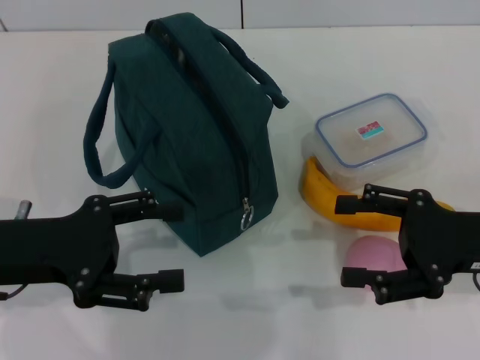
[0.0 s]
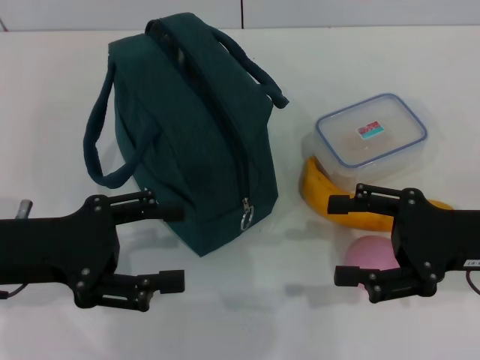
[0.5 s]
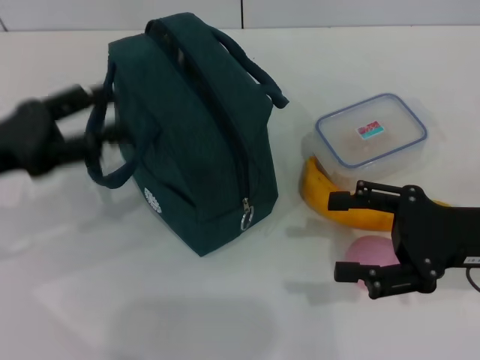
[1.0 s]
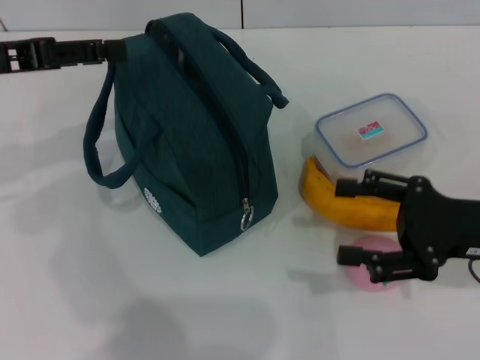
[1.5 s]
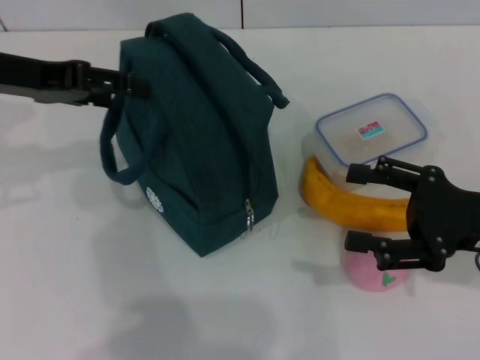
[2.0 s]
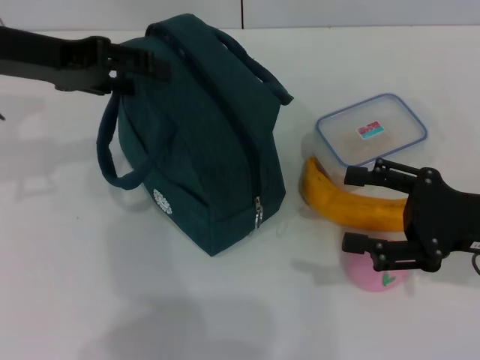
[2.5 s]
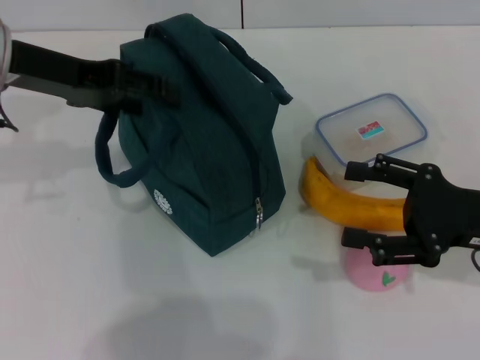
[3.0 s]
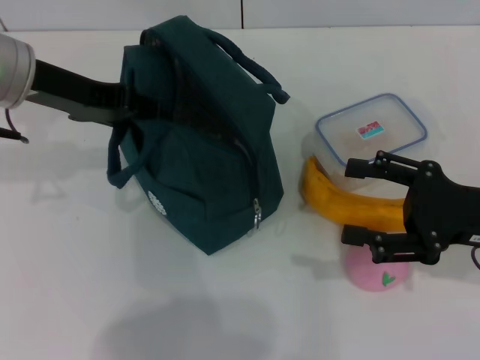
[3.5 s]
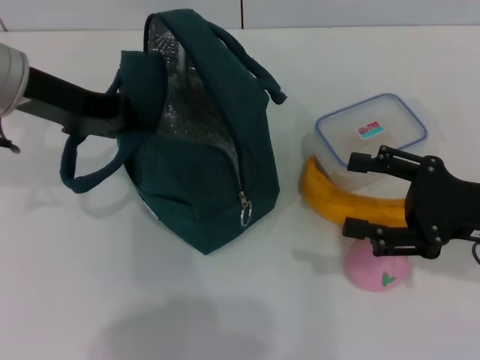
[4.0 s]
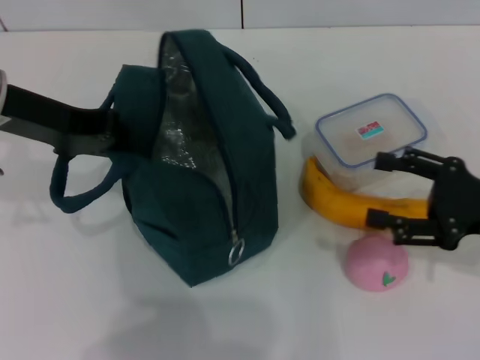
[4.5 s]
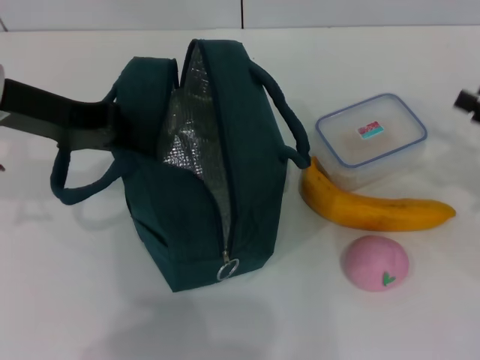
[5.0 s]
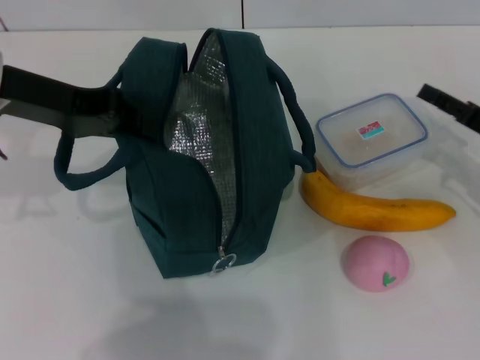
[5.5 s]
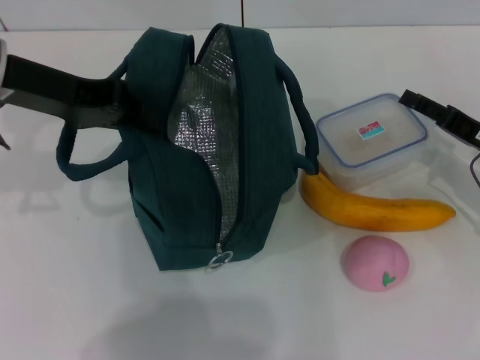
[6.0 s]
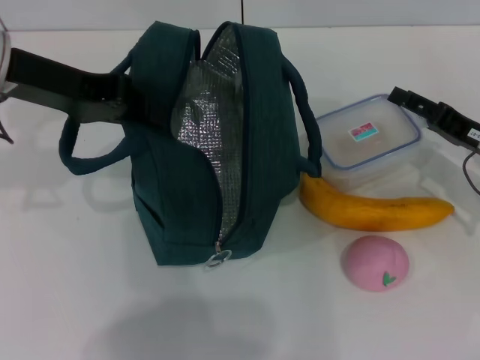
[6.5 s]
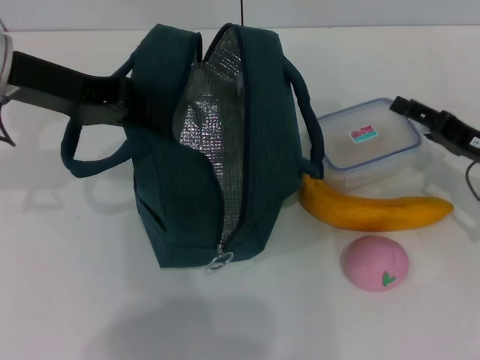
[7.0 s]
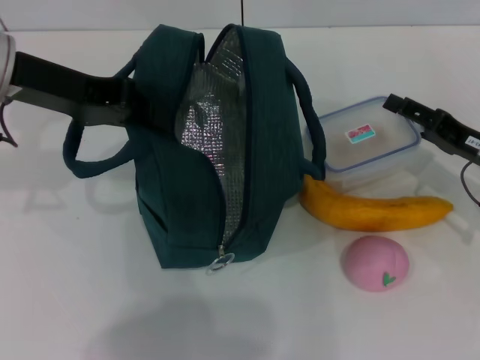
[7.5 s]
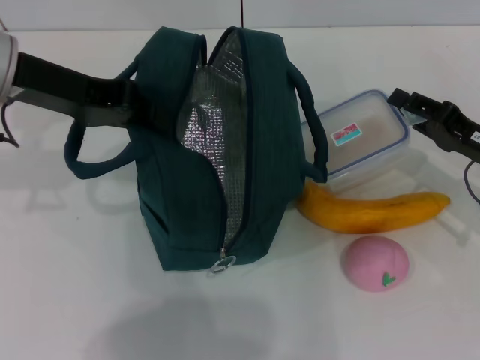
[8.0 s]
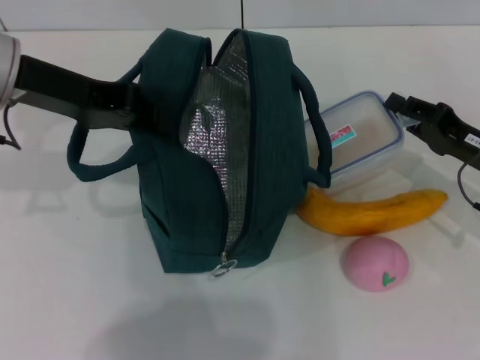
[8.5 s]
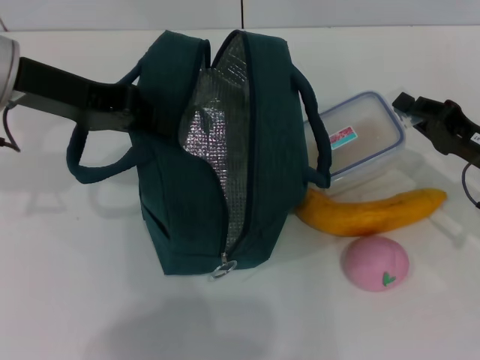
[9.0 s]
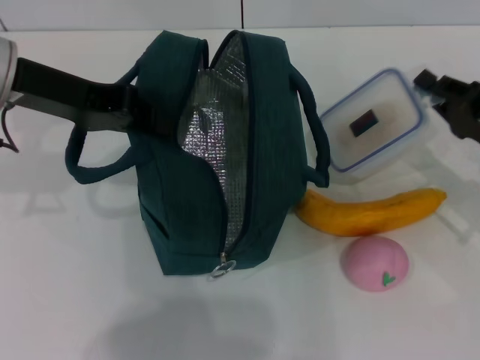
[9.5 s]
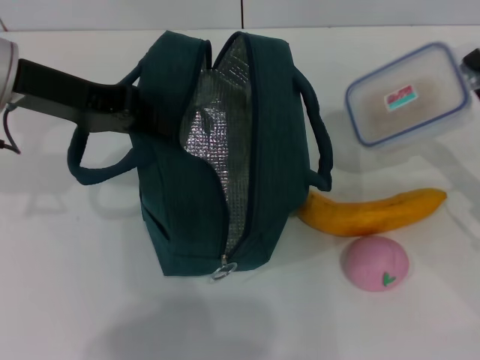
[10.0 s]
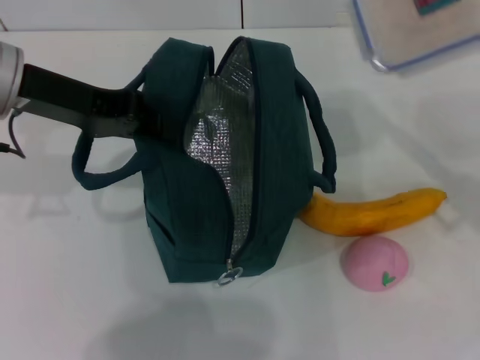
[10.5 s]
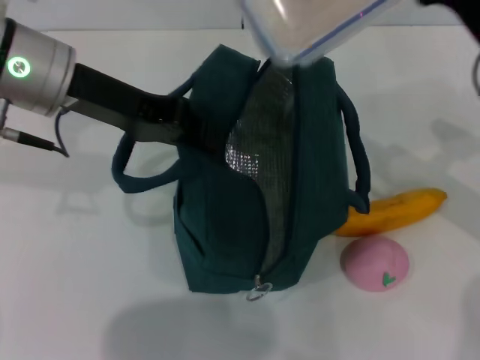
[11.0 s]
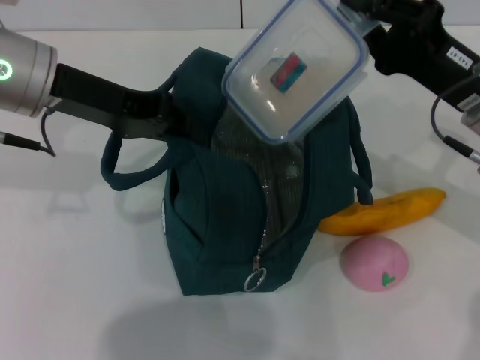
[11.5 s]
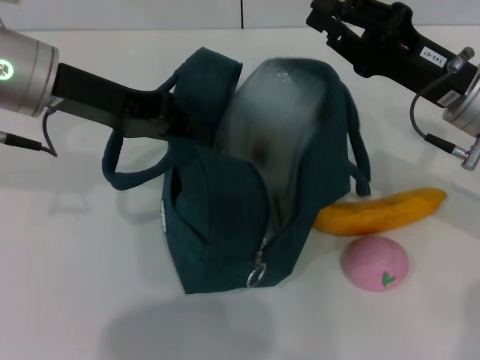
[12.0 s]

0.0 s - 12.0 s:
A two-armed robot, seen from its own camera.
Step, 0.0 s - 3.5 s: Hold the lunch bag with your left hand.
Step, 4.0 s - 9.0 s: Pick up the lunch box with your right hand.
0.0 s - 2.0 s: The left gripper shifts roughly 15 cm forward and upward.
2.0 s - 4.0 s: The left gripper closes up.
4.0 s - 6.0 s: The right gripper travels forward by roughly 5 cm.
6.0 s - 8.0 s: The grippers move only a little.
8.0 s - 10.0 s: The right gripper closes.
10.0 s - 12.0 s: The right gripper shifts about 15 cm to the left, upward and forward.

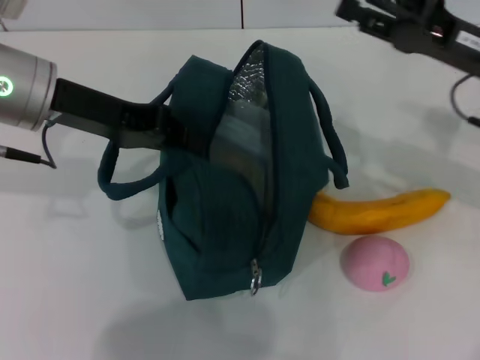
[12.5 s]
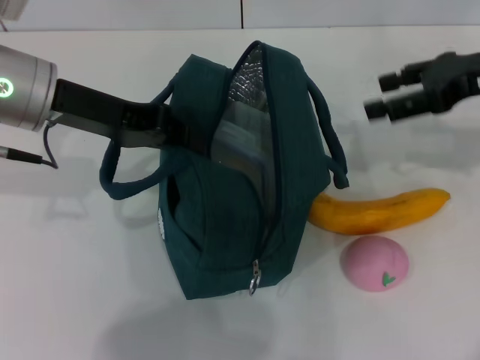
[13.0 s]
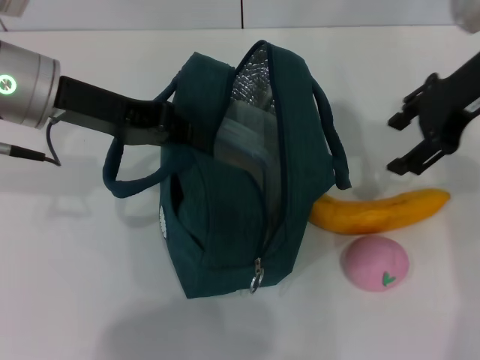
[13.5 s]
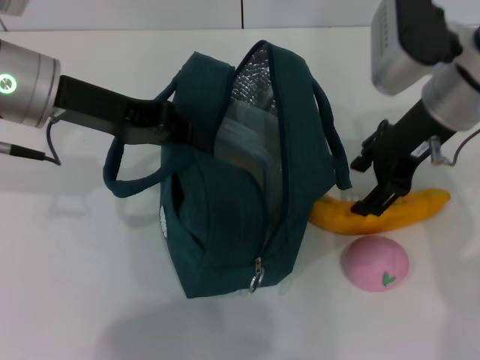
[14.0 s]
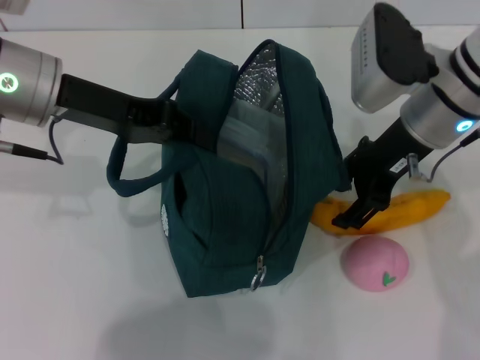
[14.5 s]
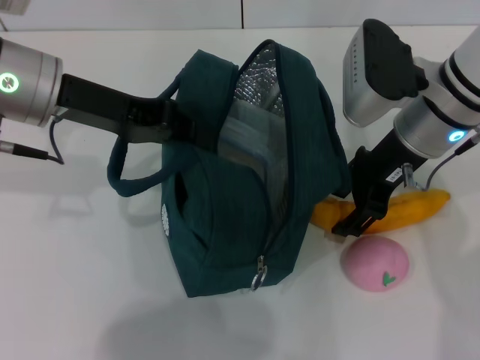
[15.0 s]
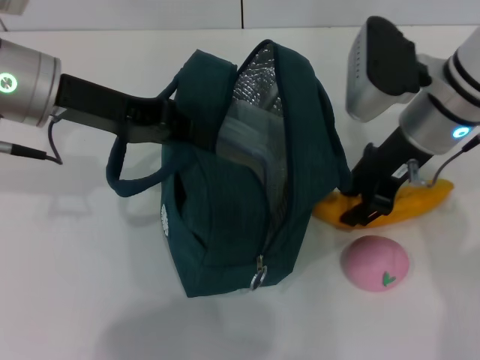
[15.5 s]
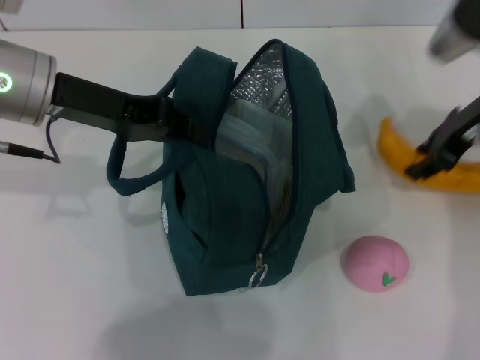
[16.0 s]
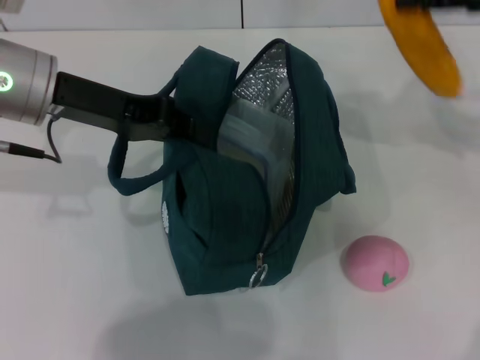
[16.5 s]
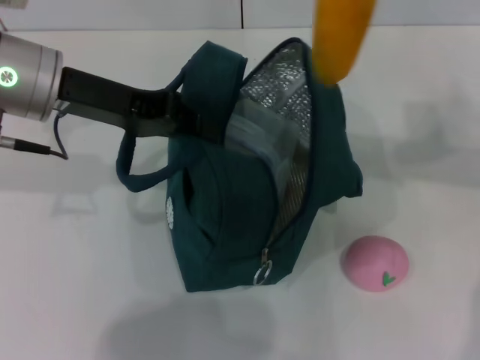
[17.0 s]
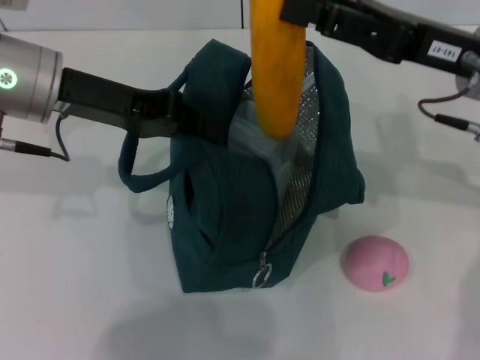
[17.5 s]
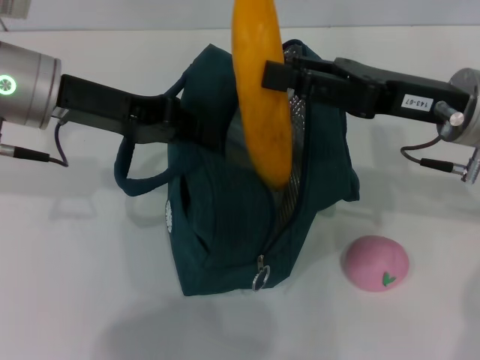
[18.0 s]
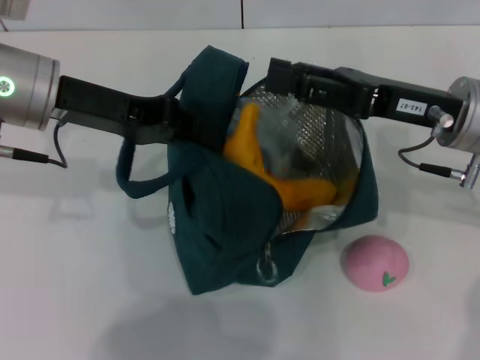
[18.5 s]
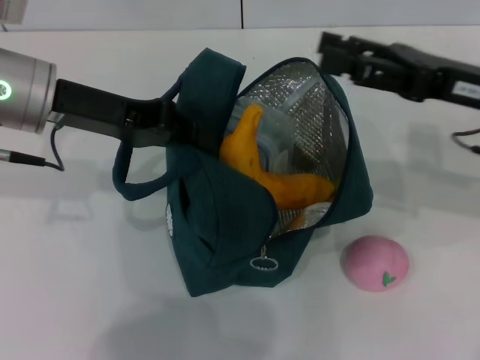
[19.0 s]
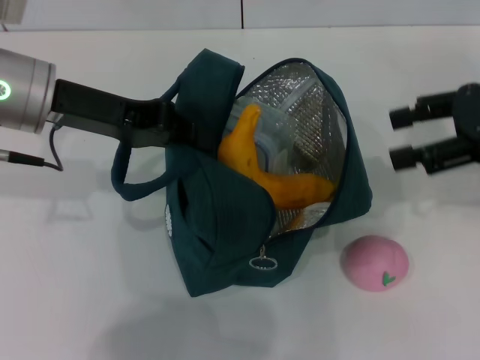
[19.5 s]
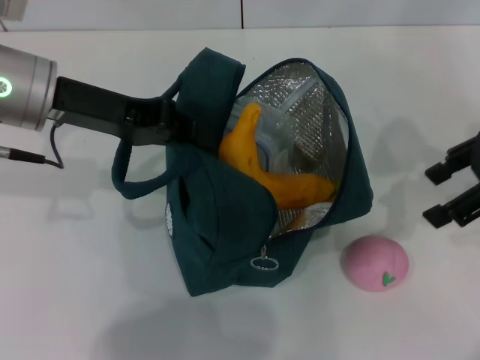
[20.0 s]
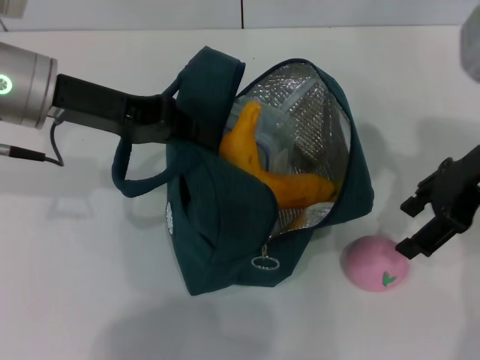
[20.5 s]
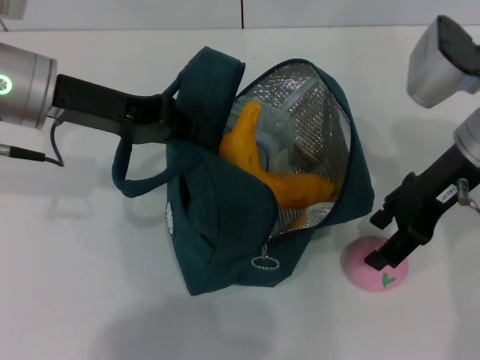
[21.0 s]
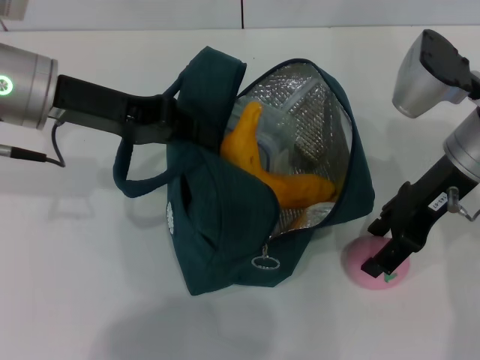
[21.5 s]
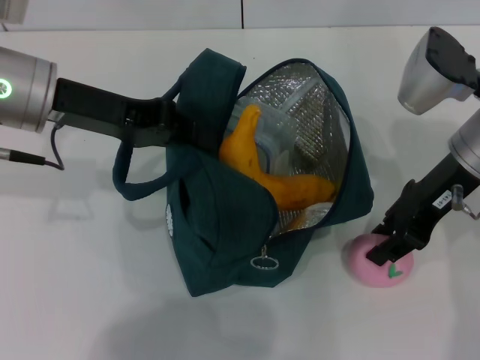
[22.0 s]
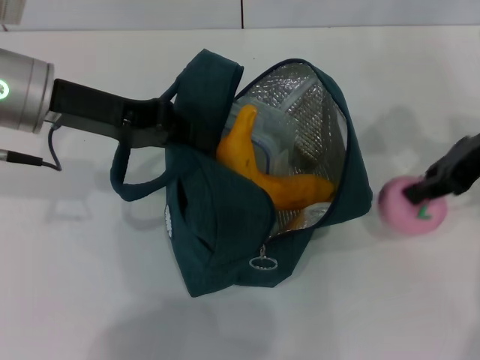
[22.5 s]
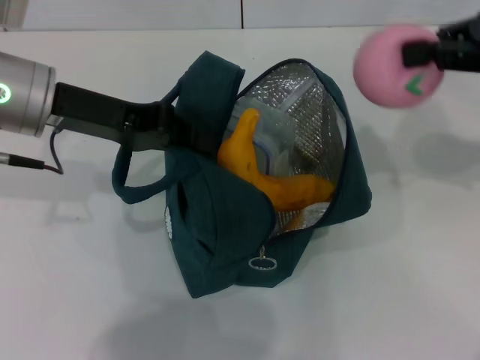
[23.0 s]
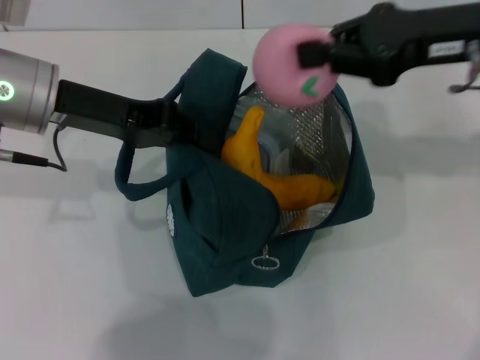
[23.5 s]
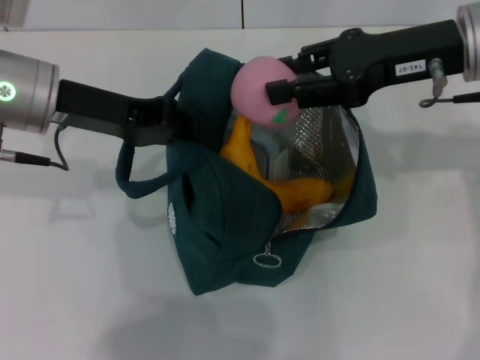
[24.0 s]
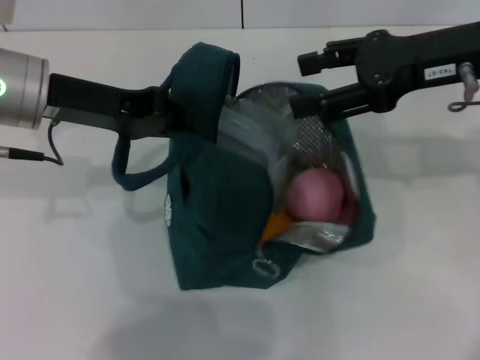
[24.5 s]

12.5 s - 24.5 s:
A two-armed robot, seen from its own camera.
Step, 12.5 s - 15.0 s: Take the banana with your right hand.
Step, 15.5 s - 18.0 s: Put the banana into the lunch bag with your right hand.
Step, 19.0 s - 22.0 s: Grab the peach with your right hand.
12.5 s - 14.5 s: The right gripper heads to the left, covering about 10 cm.
14.5 s - 16.5 s: The right gripper travels to the right and upward by some 15 cm.
16.5 s - 18.5 s: The right gripper moves downward and to the left, some 15 cm.
18.5 s - 20.5 s: The right gripper moves about 10 cm to the right and comes back.
20.5 s - 22.5 s: The right gripper closes its fingers.
22.5 s - 24.5 s: The right gripper ends up about 5 cm from where it was, and opens its fingers.

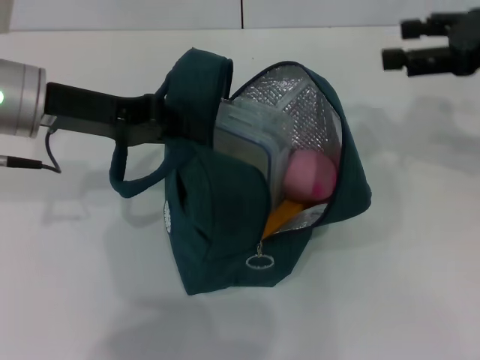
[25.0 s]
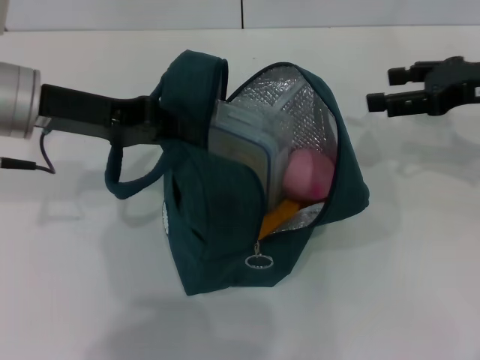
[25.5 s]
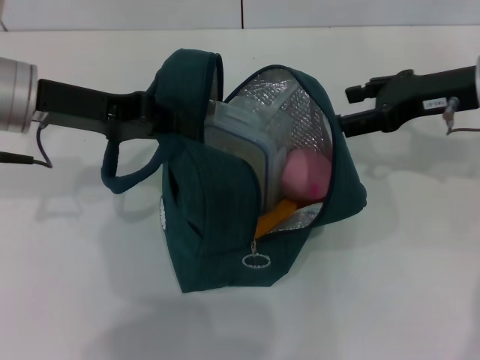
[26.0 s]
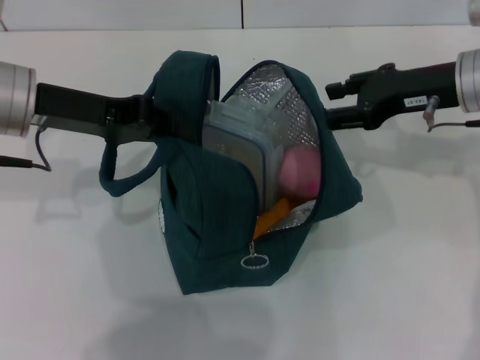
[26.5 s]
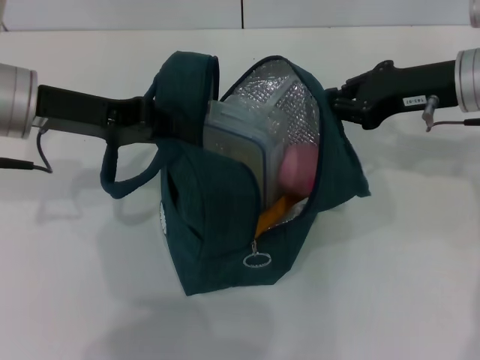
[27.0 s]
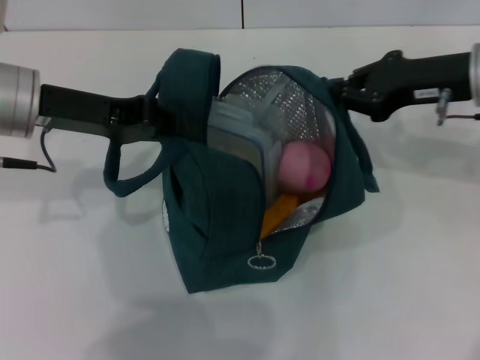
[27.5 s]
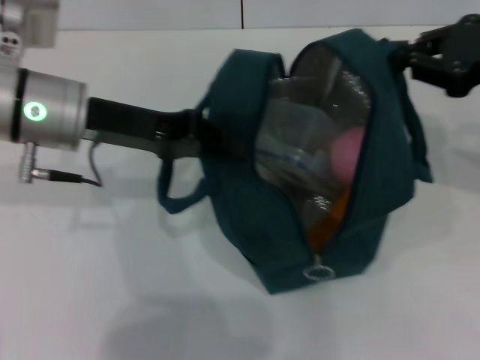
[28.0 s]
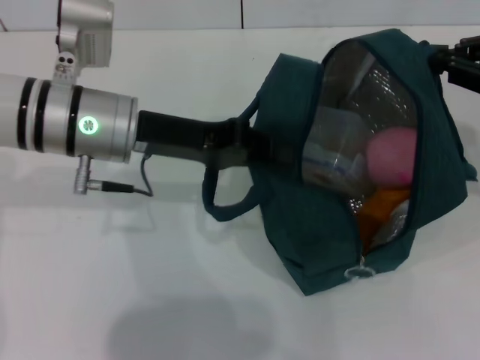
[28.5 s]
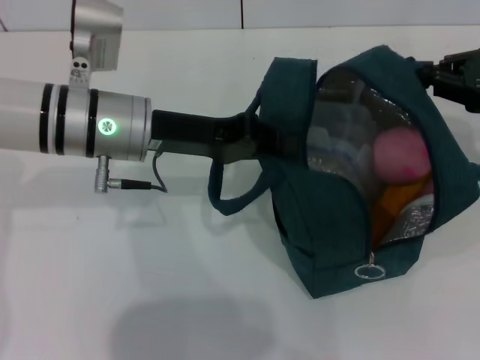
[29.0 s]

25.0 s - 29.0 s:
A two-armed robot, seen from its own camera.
25.0 s - 27.0 s: The right gripper heads to the left and downward, covering approximately 10 cm, and closes its fingers.
27.0 s - 29.0 s: Both grippers move to the right, about 10 cm.
